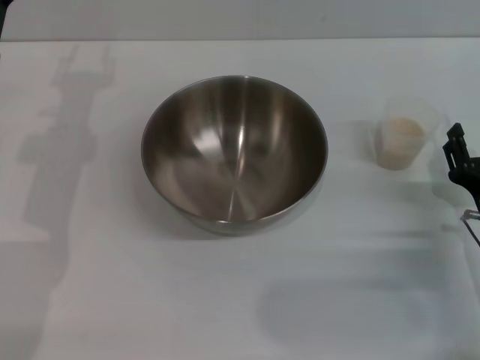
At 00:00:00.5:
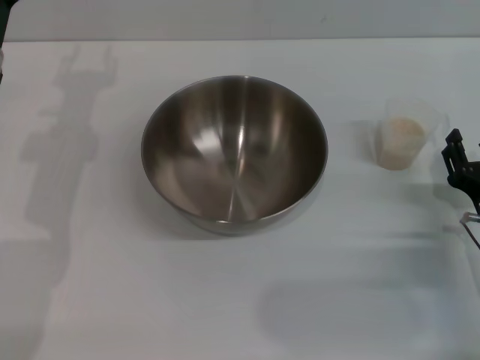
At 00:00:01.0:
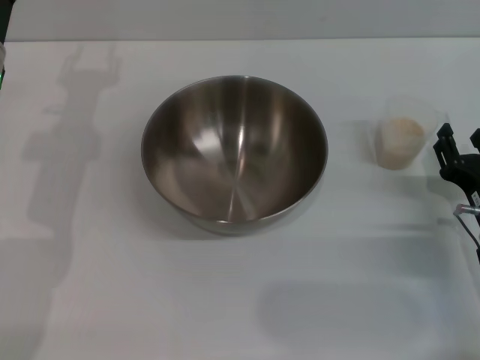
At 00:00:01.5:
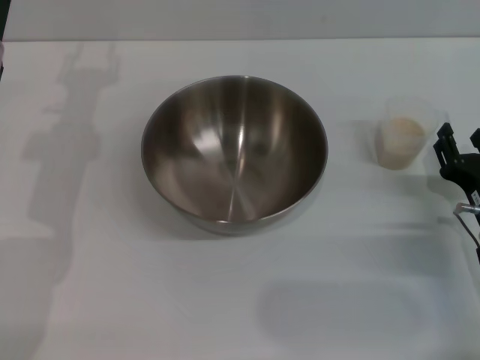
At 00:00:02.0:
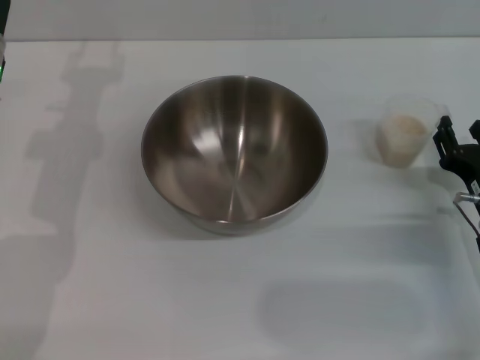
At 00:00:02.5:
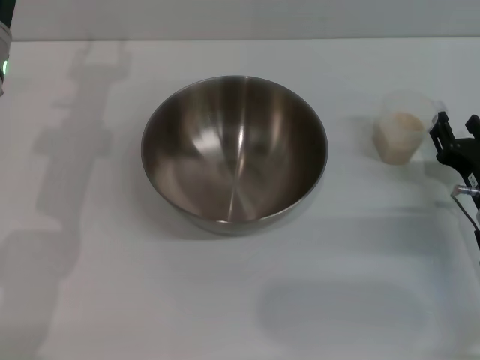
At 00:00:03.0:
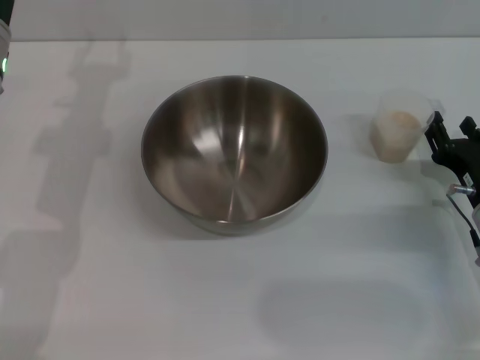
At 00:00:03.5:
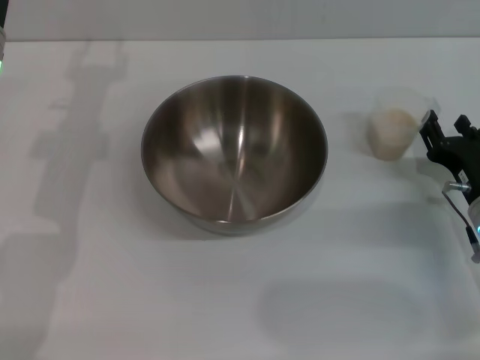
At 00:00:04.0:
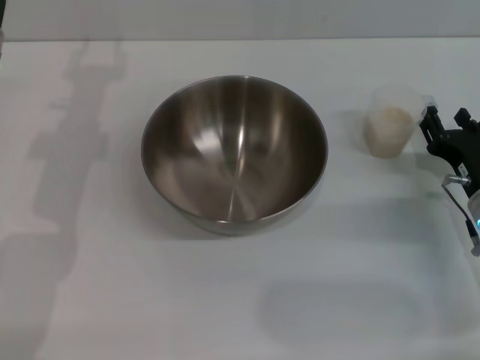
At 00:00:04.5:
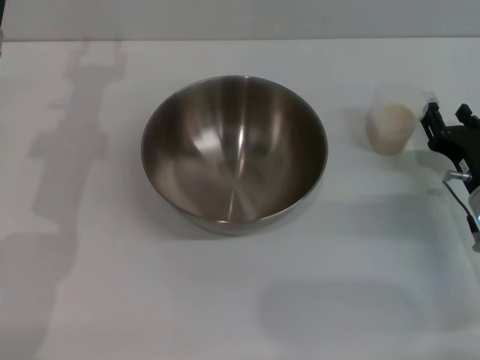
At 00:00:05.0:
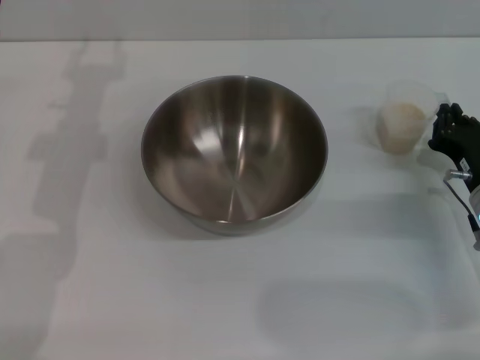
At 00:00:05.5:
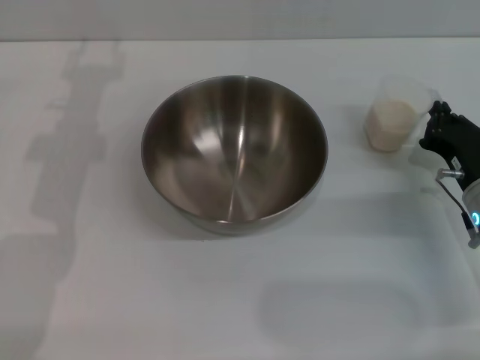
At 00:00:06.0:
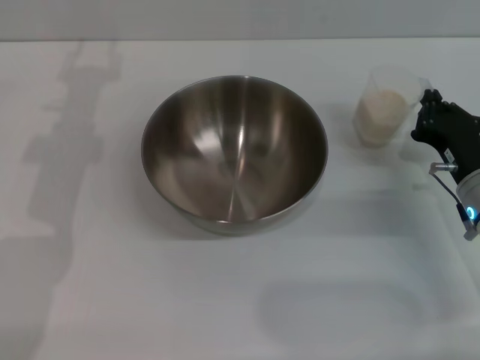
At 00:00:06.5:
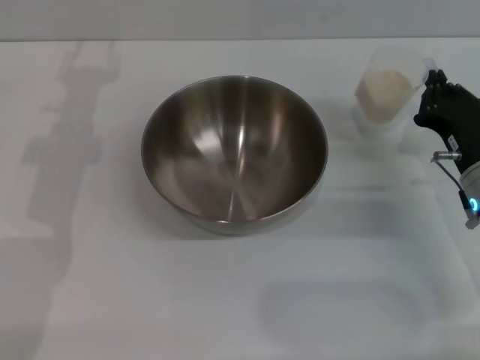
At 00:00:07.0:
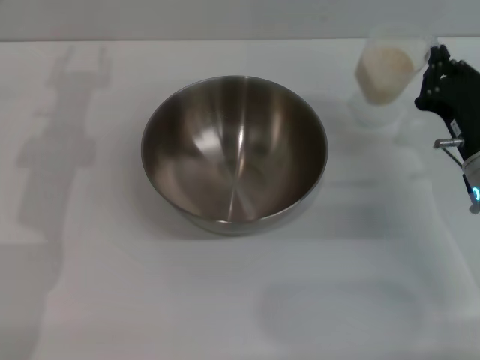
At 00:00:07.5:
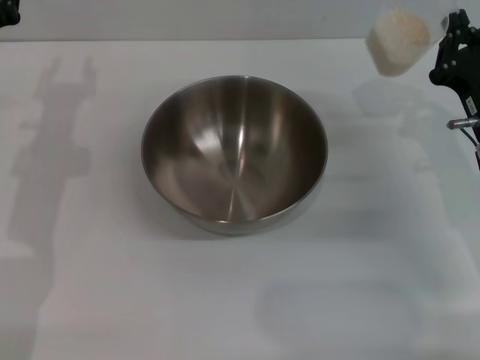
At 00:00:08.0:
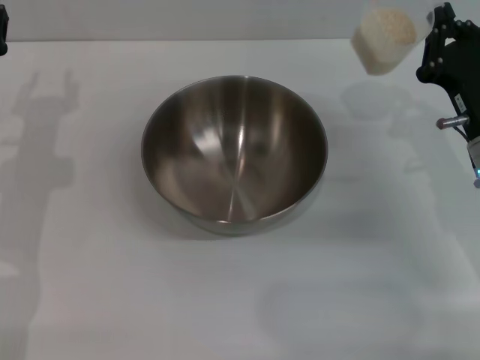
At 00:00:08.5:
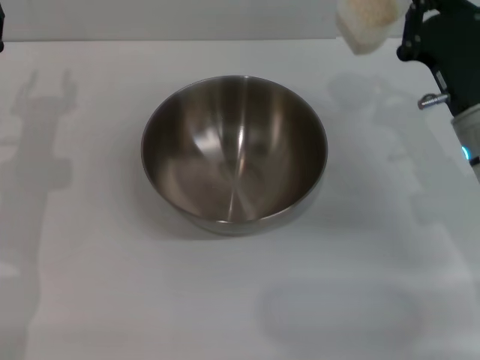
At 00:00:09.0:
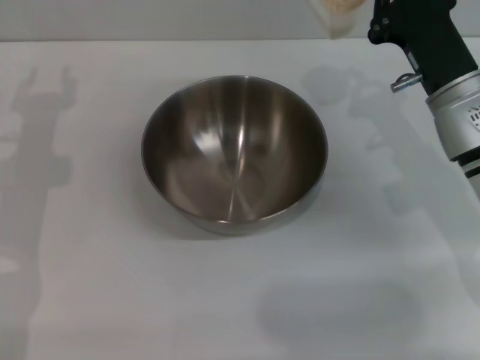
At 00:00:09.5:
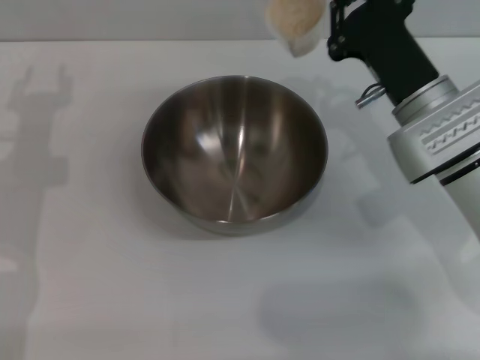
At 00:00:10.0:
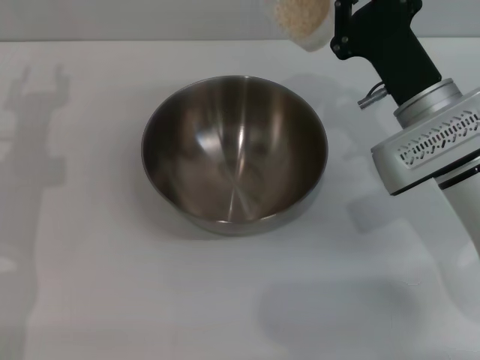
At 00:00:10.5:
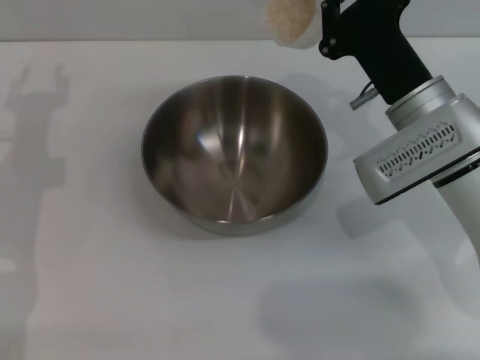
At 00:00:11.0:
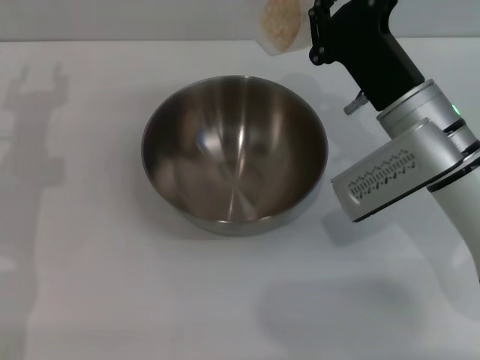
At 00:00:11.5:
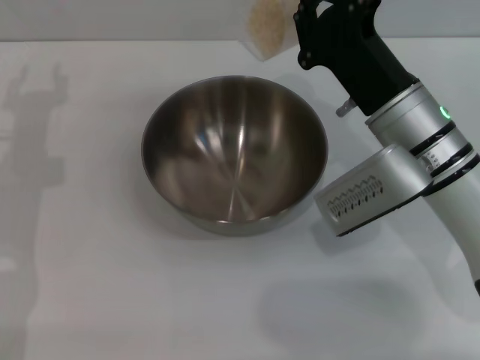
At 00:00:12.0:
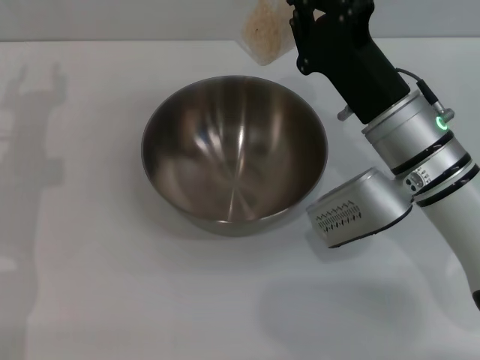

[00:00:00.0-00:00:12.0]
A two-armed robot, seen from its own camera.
Task of the whole recording: Place the bowl in the middle of the table with one hand and pour the rice from the grain cup into it with the other hand.
Step, 00:00:00.0 to 00:00:06.0: Pick up the cup with rice in it with the right gripper.
00:00:00.0 to 00:00:04.0: The grippers make only small movements.
00:00:04.0 to 00:00:06.0: The right gripper closes up.
00:00:06.0 to 00:00:08.0: The right gripper ends up approximately 5 cm from where it was.
00:00:08.0 to 00:00:10.0: The right gripper travels to the left by about 5 cm.

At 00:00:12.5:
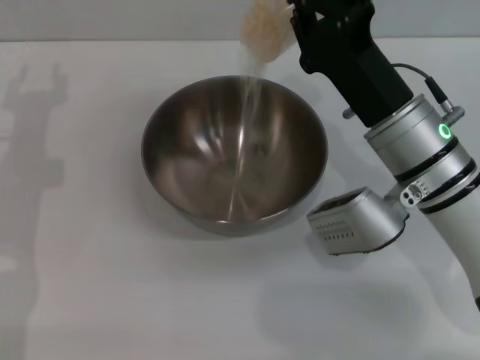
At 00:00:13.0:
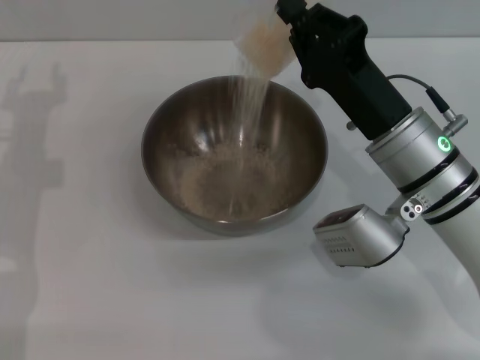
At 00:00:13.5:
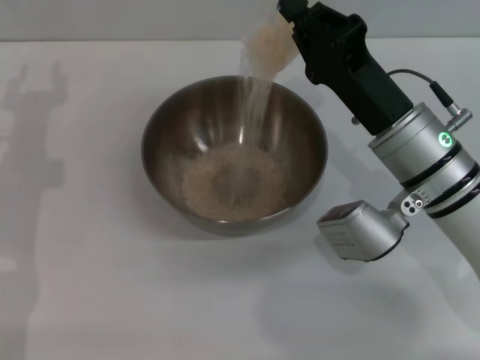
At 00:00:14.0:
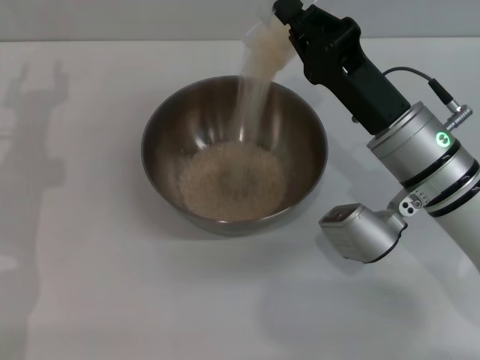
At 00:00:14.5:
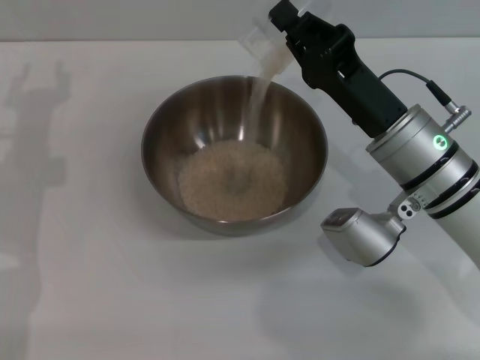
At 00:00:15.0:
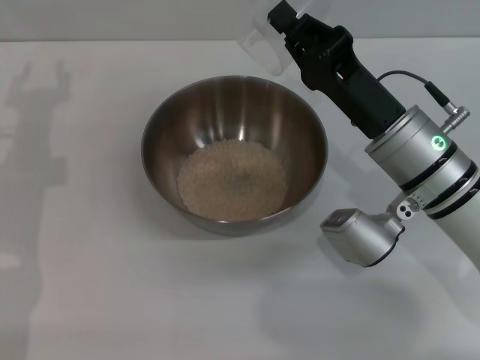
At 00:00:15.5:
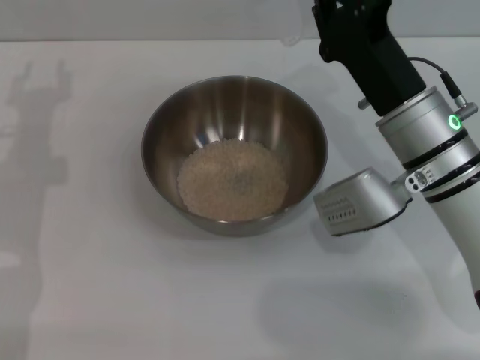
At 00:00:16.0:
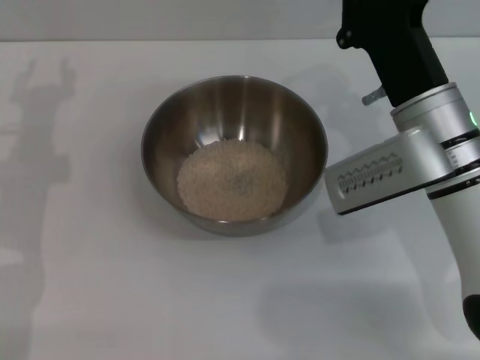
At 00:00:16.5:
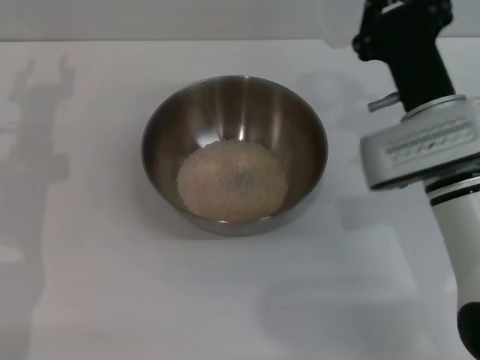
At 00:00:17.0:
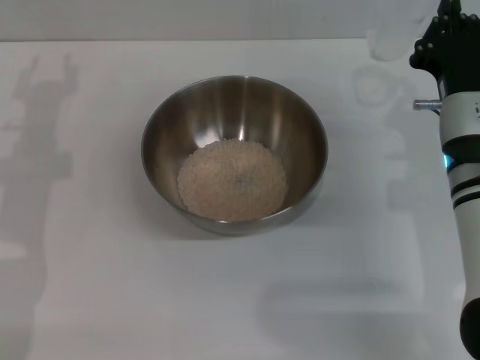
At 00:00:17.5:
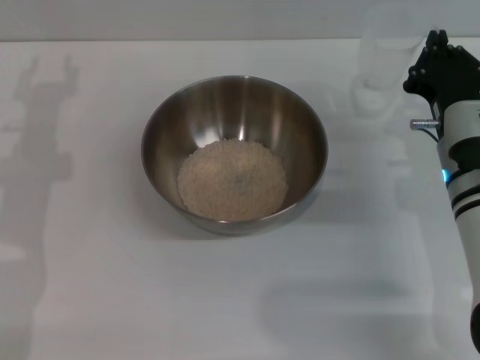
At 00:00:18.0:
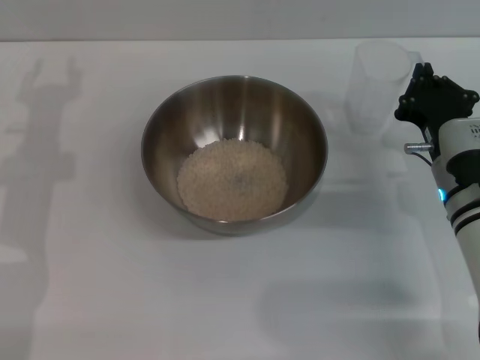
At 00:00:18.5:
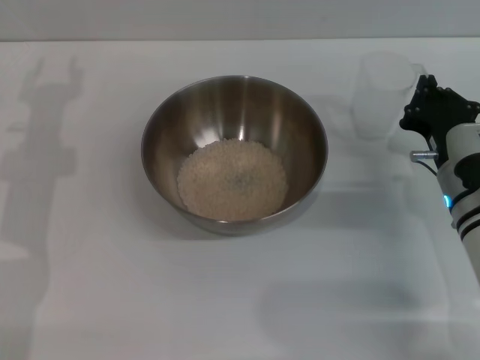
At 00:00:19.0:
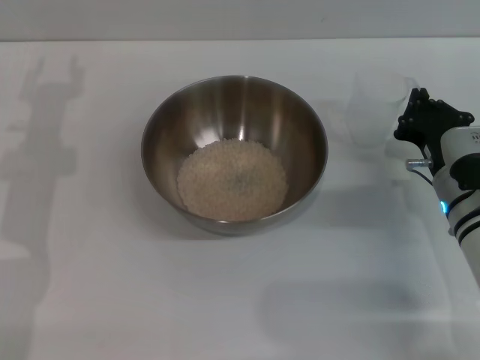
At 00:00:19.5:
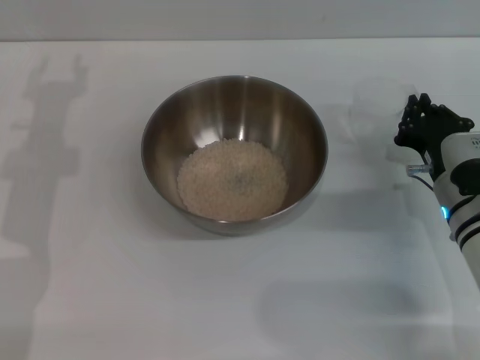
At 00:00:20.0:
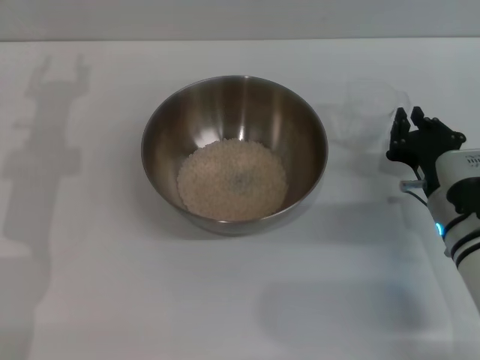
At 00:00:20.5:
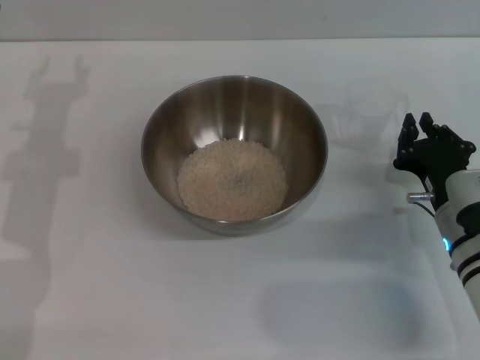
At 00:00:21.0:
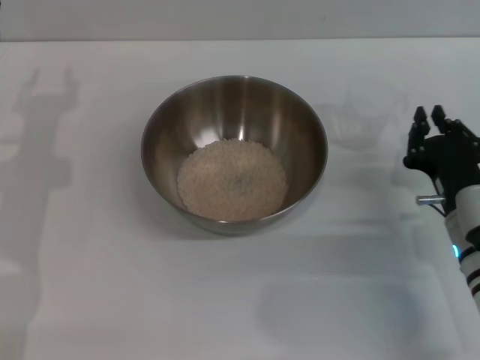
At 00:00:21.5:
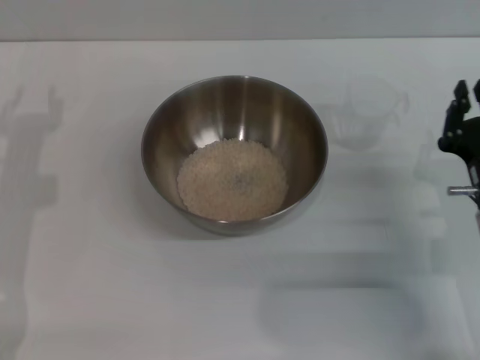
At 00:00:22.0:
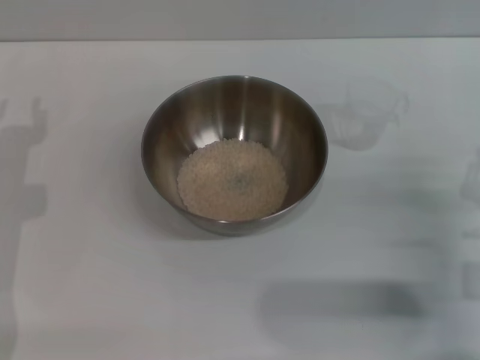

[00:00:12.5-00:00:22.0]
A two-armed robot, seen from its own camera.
Task of the whole recording: Place the bowl in the middle of the table with one hand and pour the rice from the grain cup into it with the other hand.
Step, 00:00:12.5 to 00:00:15.5: Pour the rice from the cup into the bowl with the right gripper.
Step, 00:00:16.0 to 00:00:20.5: Place the cup on the table with the right gripper.
00:00:12.5 to 00:00:14.5: The grippers stay close to where they were, moving slightly.
00:00:16.5 to 00:00:18.0: The right gripper moves downward, approximately 5 cm.
00:00:18.0 to 00:00:20.0: The grippers stay close to where they were, moving slightly.
00:00:20.0 to 00:00:22.0: The right gripper heads backward and to the right, covering about 10 cm.
